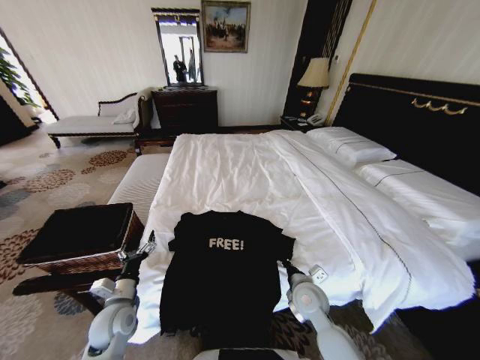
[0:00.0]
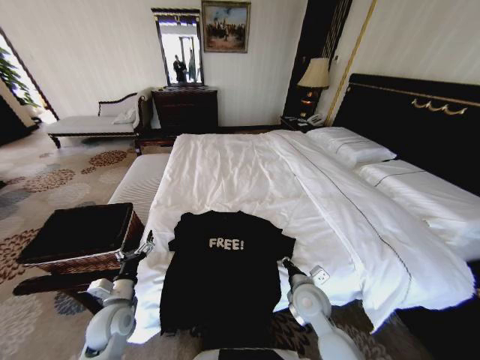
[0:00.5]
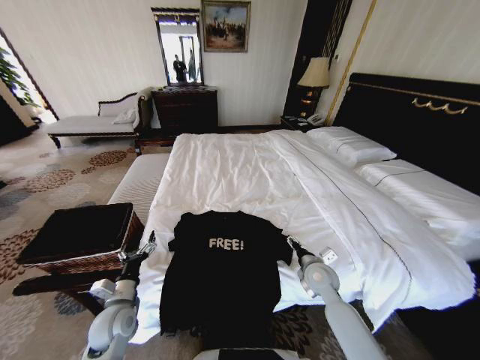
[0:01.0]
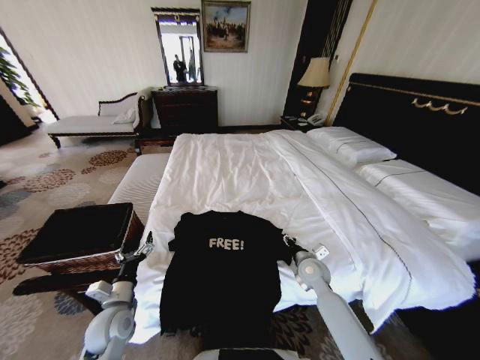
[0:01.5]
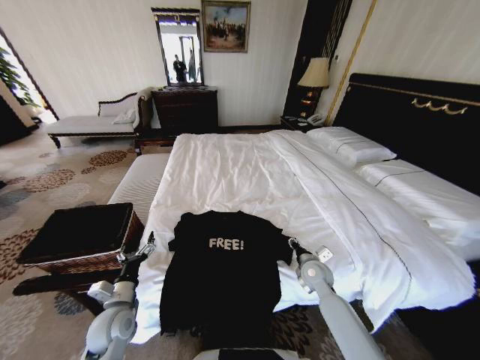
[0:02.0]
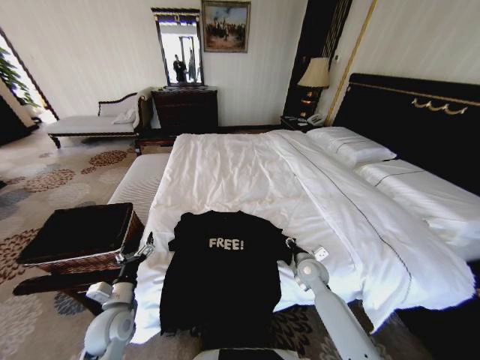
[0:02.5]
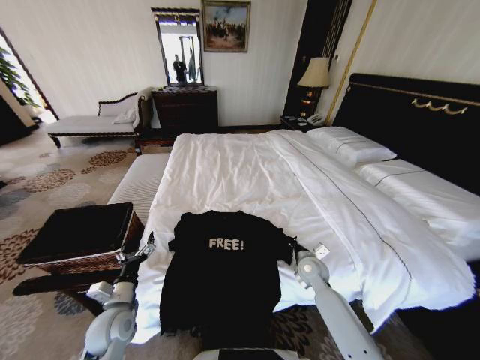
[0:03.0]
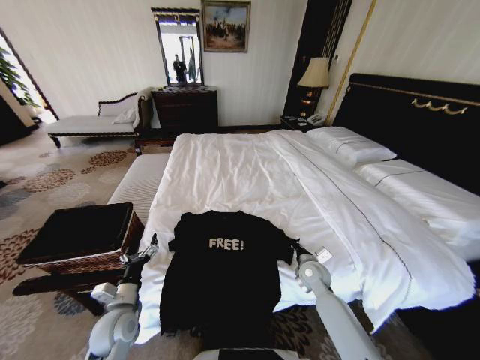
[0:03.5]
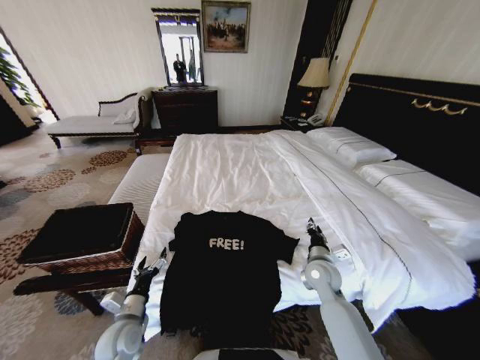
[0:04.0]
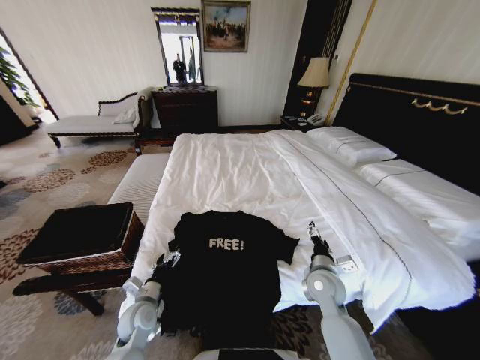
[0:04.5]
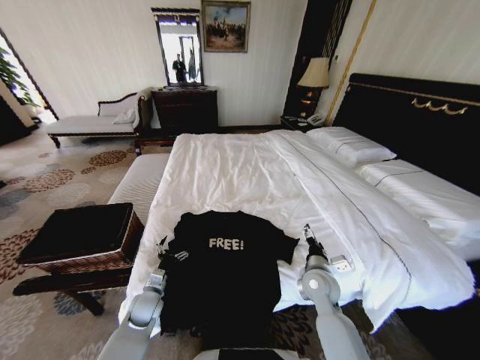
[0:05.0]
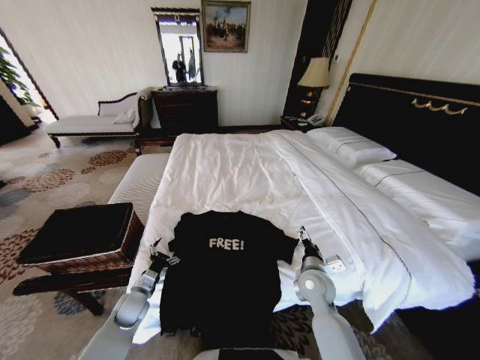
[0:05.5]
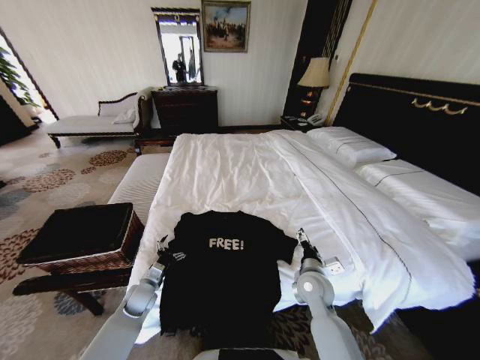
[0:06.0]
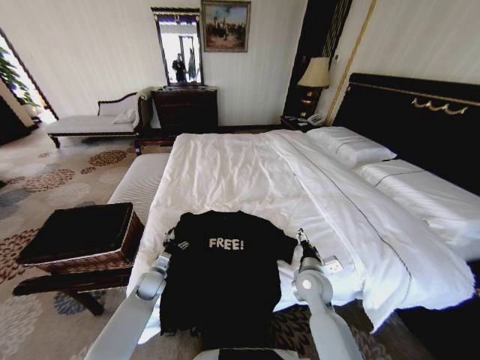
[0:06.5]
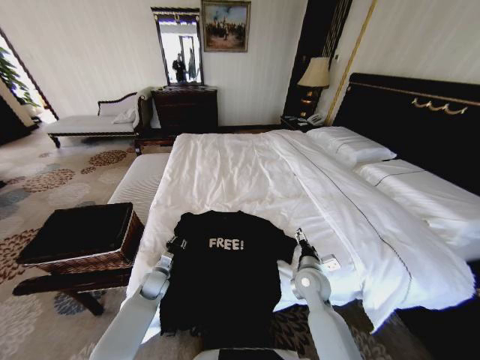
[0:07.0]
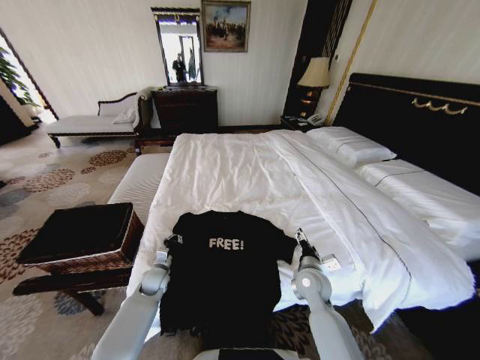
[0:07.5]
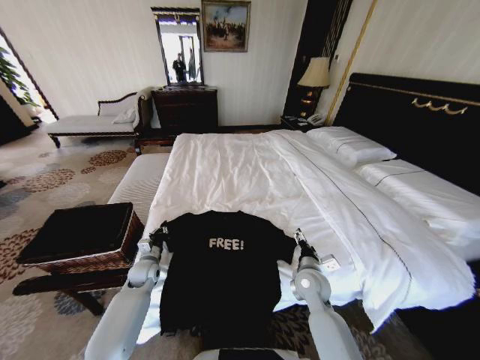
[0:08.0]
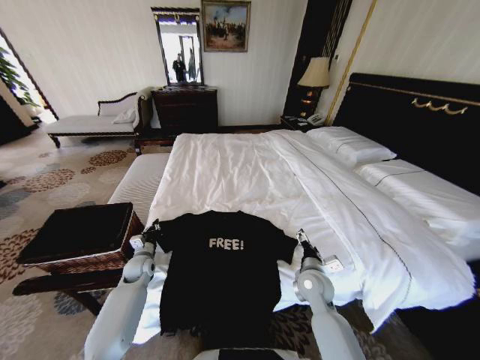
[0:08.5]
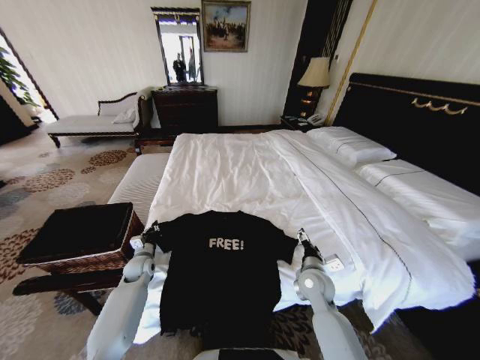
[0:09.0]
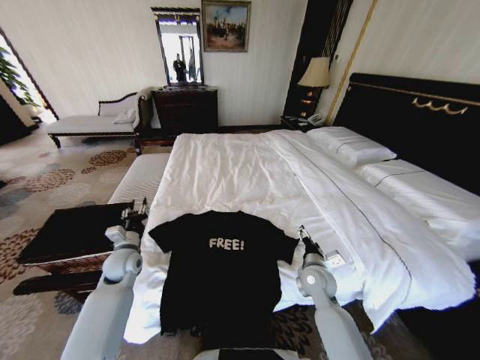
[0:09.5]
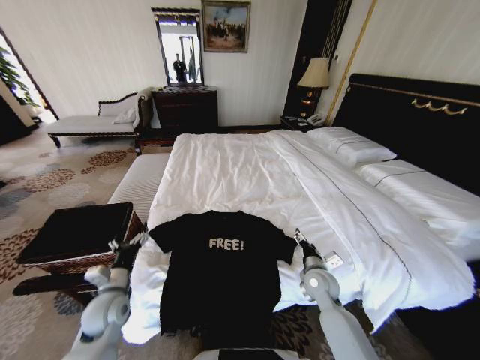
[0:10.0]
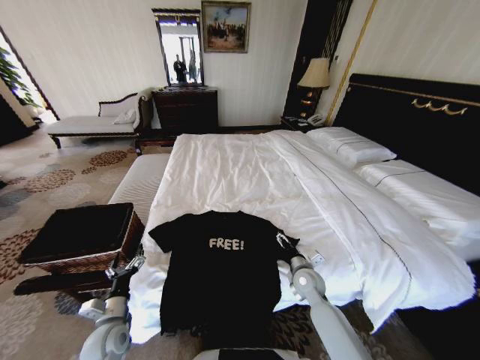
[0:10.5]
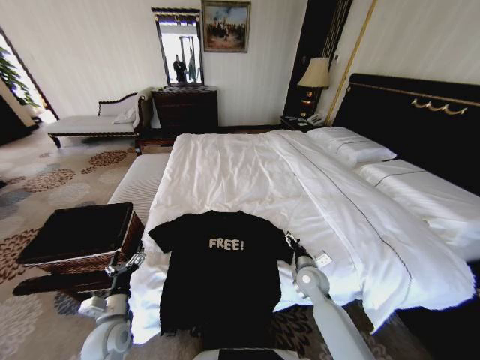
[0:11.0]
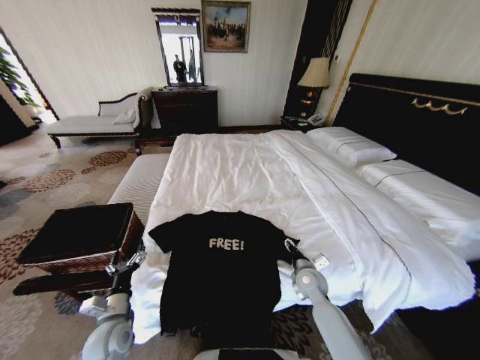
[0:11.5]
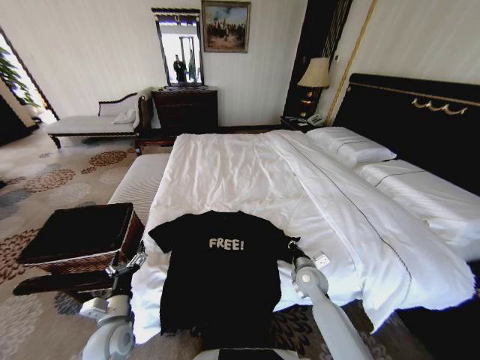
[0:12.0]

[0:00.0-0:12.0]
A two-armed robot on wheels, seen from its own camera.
Task of the whole recording: Fold the clothes on the bed and place them into the basket.
0:00.0 to 0:02.0: The right gripper moves forward and to the right, about 10 cm, and opens its fingers.
0:02.0 to 0:04.0: The right gripper closes, then opens again.
0:04.0 to 0:06.0: The left gripper moves forward and downward, roughly 15 cm; the right gripper opens its fingers.
0:06.0 to 0:08.0: The left gripper moves forward, roughly 5 cm, and closes its fingers.
0:08.0 to 0:10.0: The left gripper heads backward and upward, covering roughly 15 cm, and opens.
0:10.0 to 0:12.0: The left gripper shifts approximately 5 cm backward, while the right gripper closes its fingers.

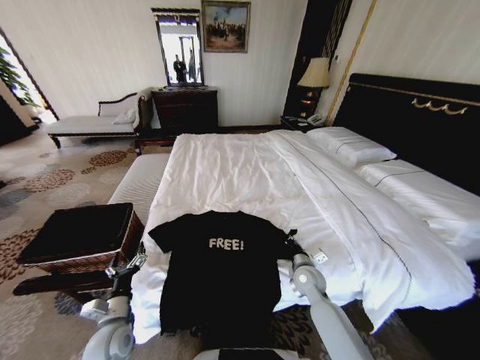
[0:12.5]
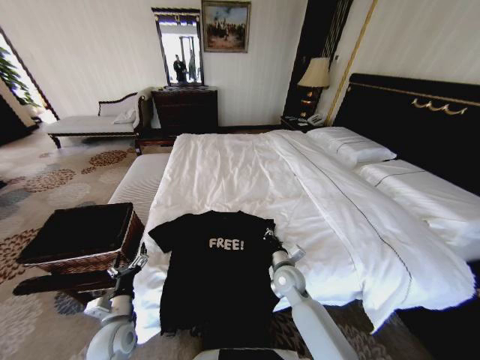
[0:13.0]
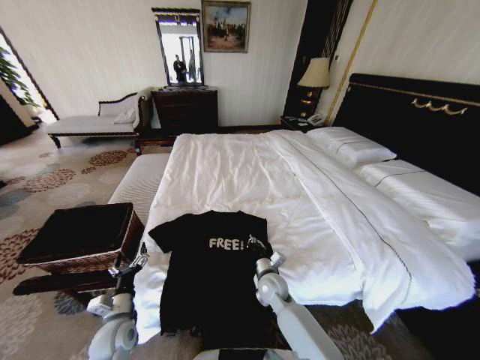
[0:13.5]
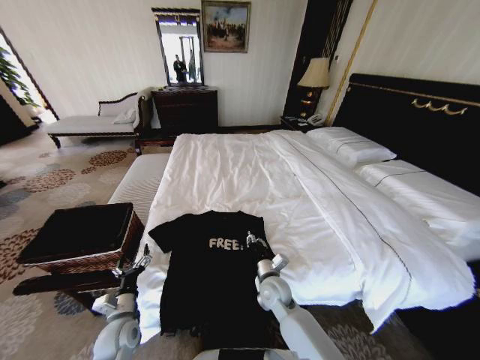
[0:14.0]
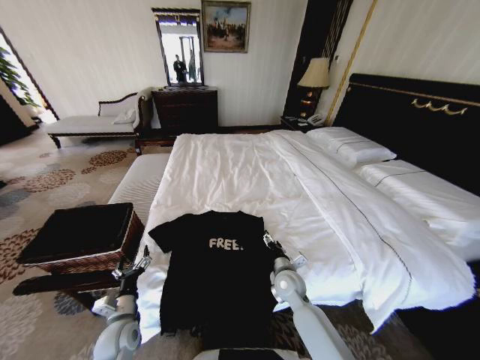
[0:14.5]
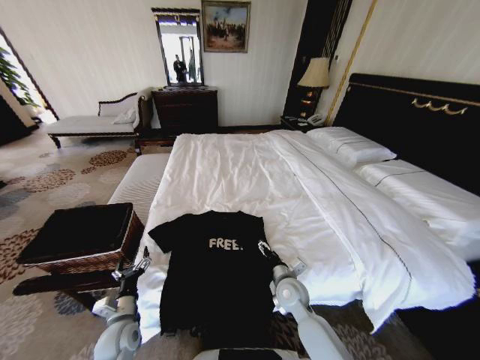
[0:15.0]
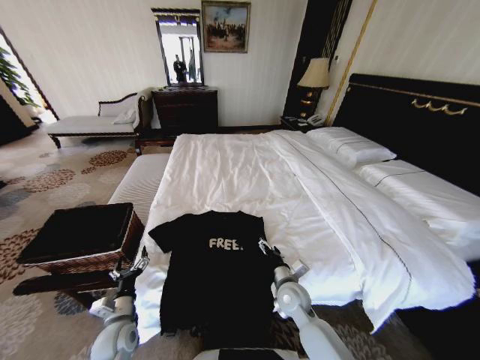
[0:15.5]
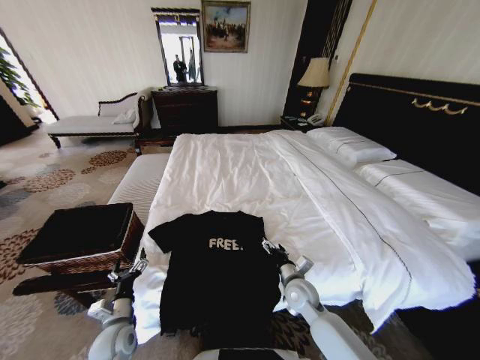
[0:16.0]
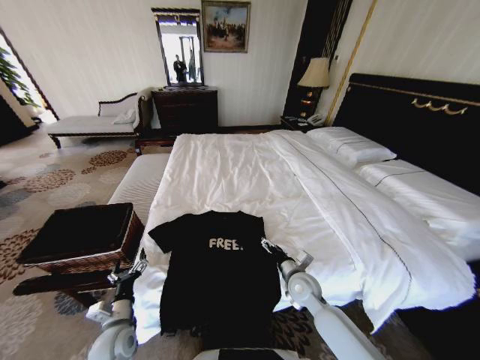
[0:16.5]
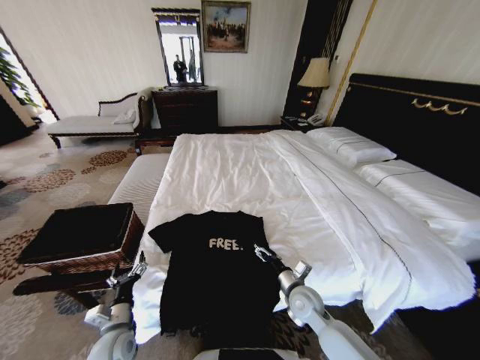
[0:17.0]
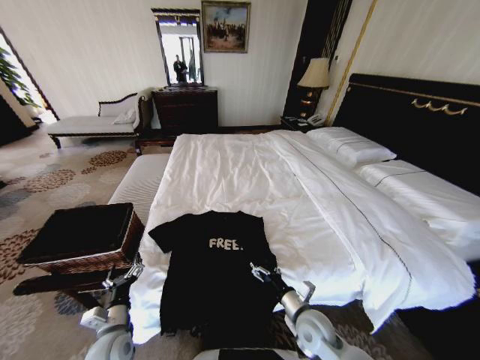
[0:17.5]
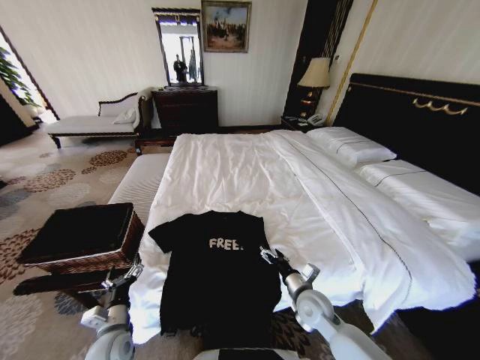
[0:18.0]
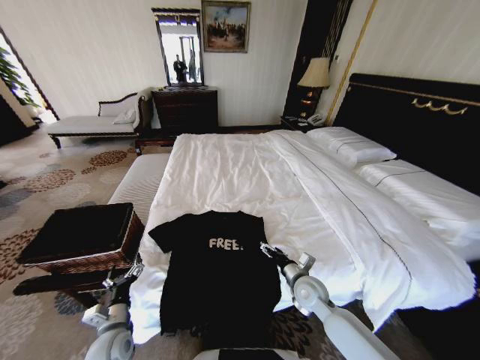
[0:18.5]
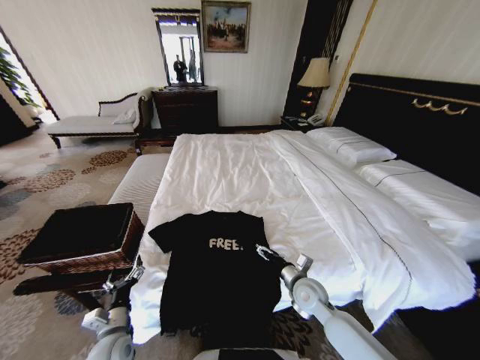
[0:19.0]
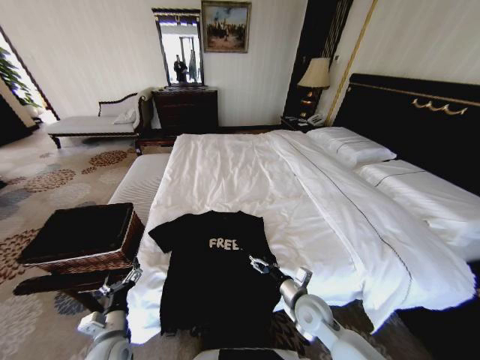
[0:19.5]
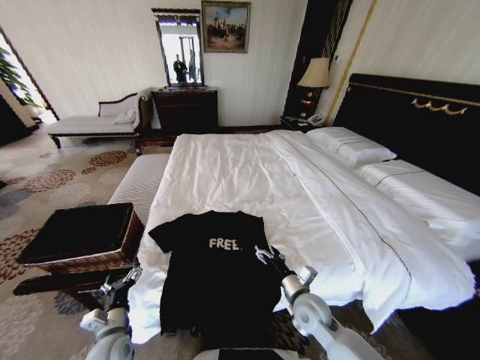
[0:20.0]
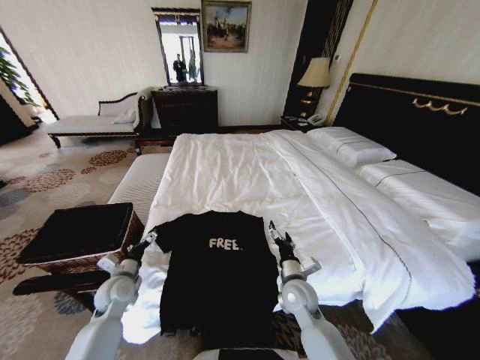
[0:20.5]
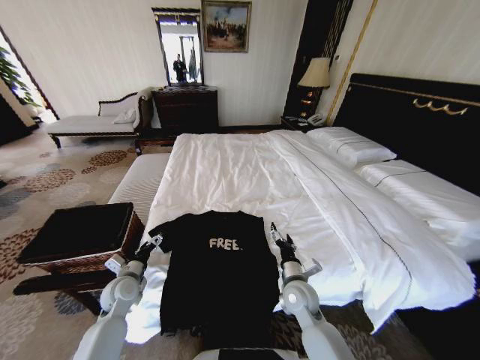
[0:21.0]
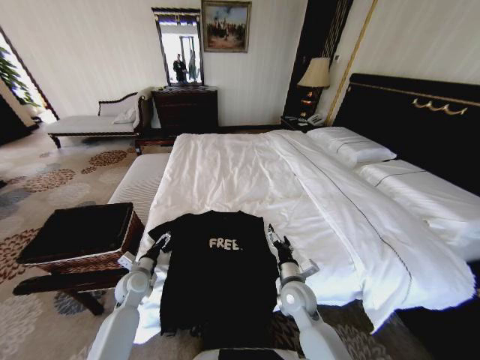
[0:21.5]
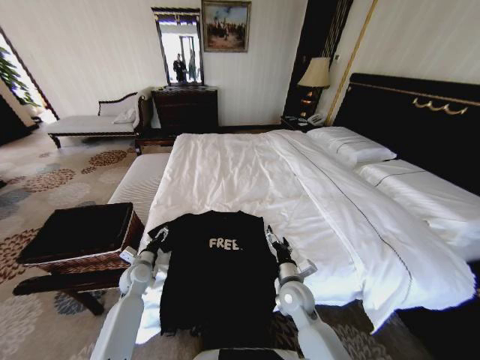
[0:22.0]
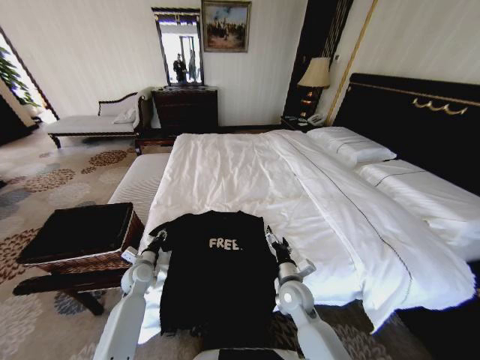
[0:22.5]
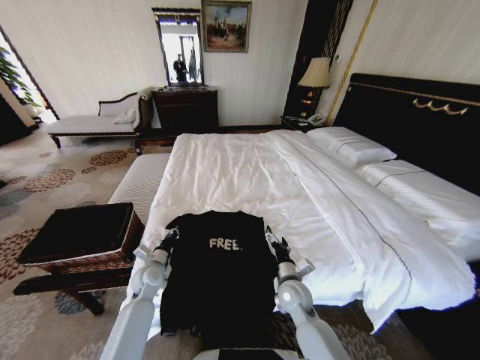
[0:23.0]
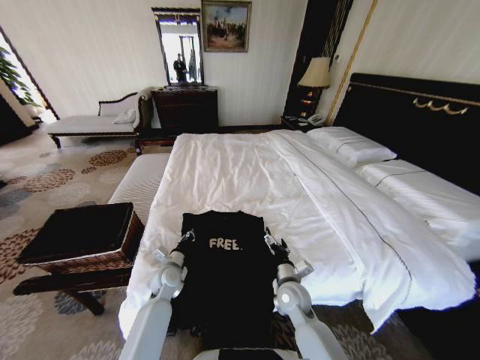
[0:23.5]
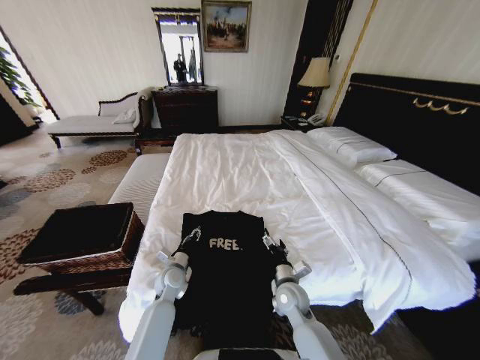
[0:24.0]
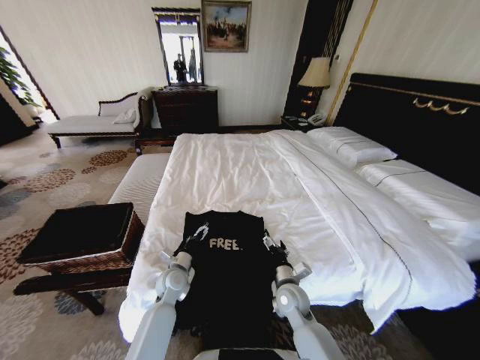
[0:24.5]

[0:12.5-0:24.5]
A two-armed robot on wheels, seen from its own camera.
Task of the whole recording: Fold the clothes on the bed and place them into the basket.
0:12.5 to 0:14.5: The right gripper moves to the left, about 5 cm, and opens its fingers.
0:14.5 to 0:16.5: The grippers move only a little.
0:16.5 to 0:18.5: The right gripper travels backward and back again, approximately 10 cm each way.
0:18.5 to 0:20.5: The left gripper moves forward, roughly 10 cm.
0:20.5 to 0:22.5: The left gripper heads forward and downward, covering approximately 10 cm, and closes.
0:22.5 to 0:24.5: The left gripper heads to the right, covering approximately 10 cm, and opens up.

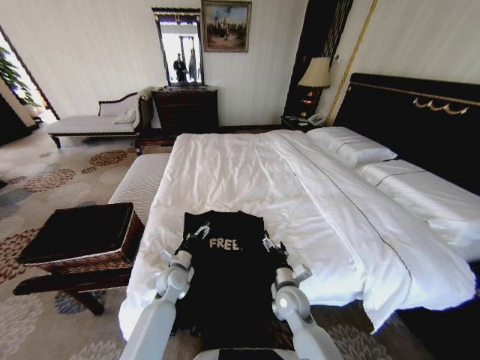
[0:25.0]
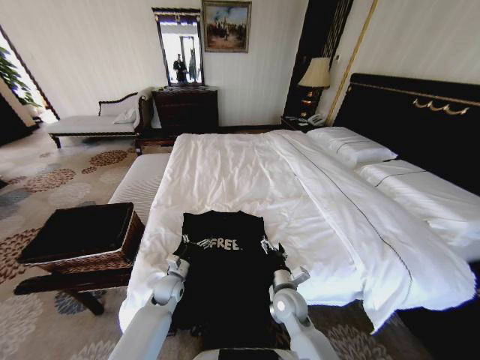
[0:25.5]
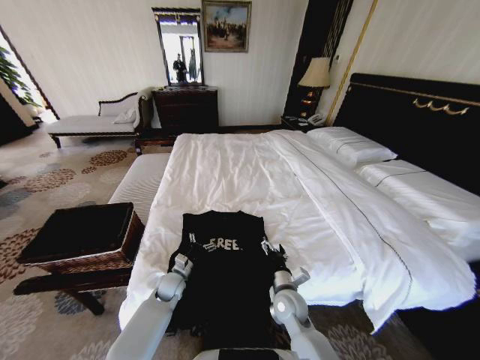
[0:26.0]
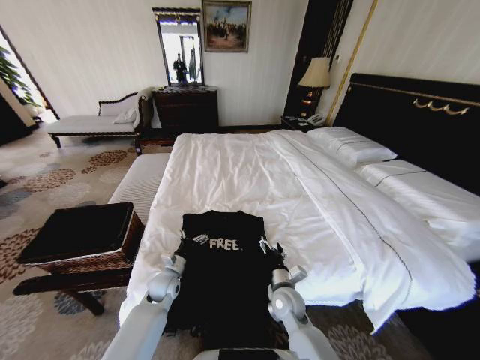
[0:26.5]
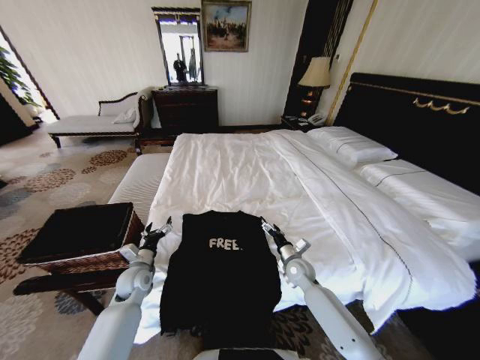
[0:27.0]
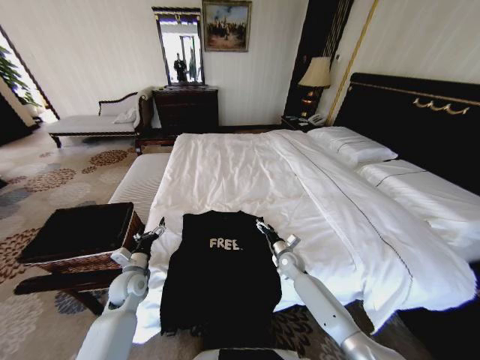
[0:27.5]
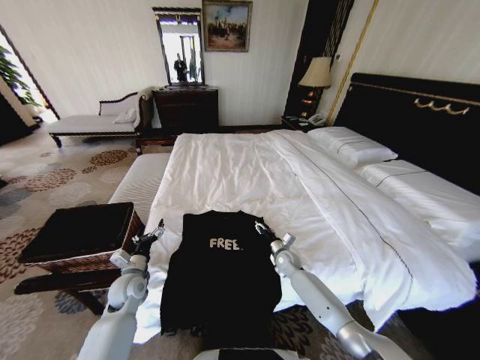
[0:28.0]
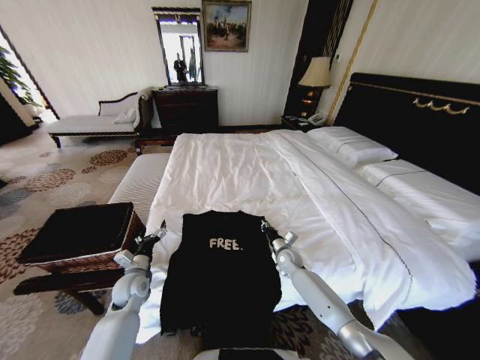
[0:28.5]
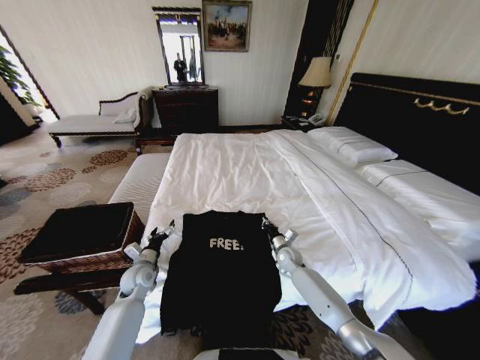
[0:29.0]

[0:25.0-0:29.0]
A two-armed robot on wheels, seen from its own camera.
Task of the whole recording: Fold the clothes on the bed and place them into the basket.
0:25.0 to 0:27.0: The left gripper goes approximately 10 cm to the left. The right gripper is displaced forward and to the right by some 10 cm.
0:27.0 to 0:29.0: The right gripper heads forward, covering approximately 5 cm, and closes.
